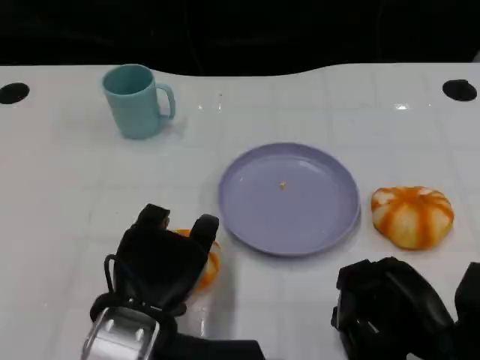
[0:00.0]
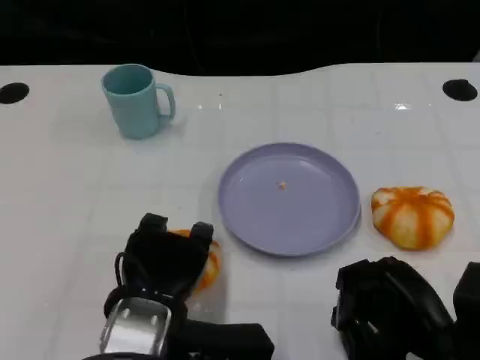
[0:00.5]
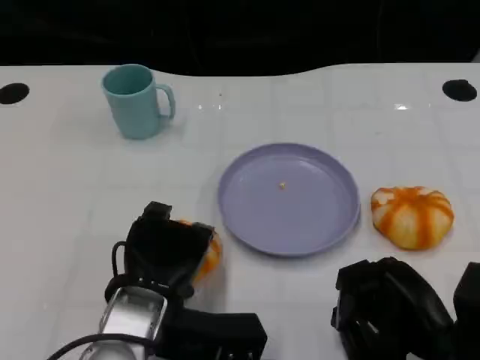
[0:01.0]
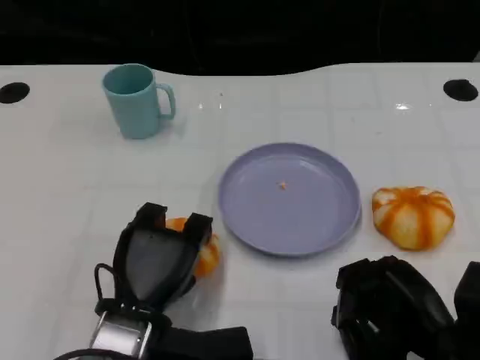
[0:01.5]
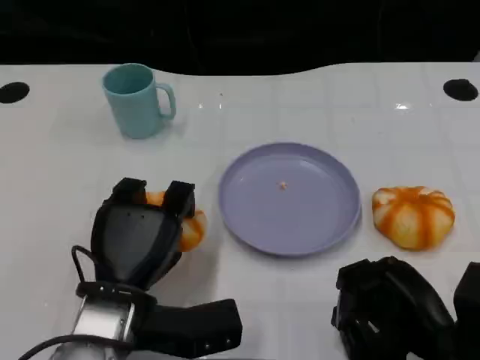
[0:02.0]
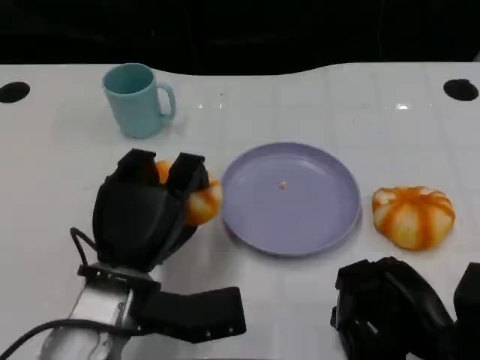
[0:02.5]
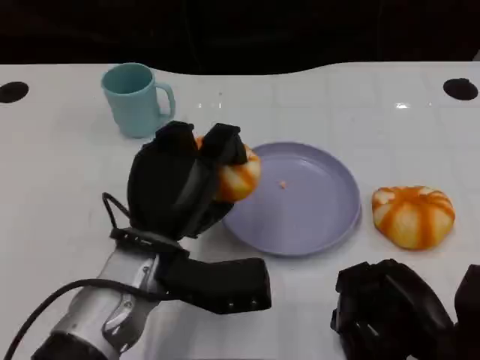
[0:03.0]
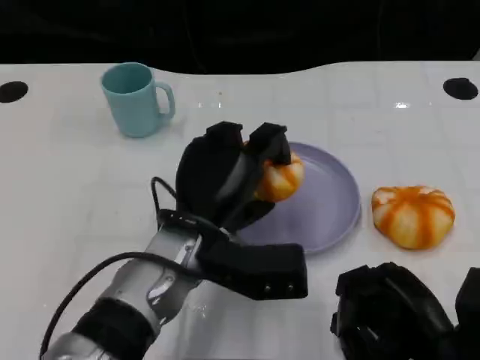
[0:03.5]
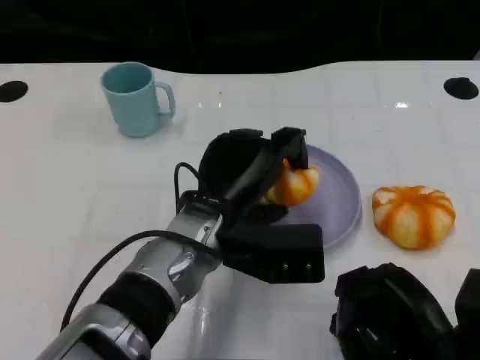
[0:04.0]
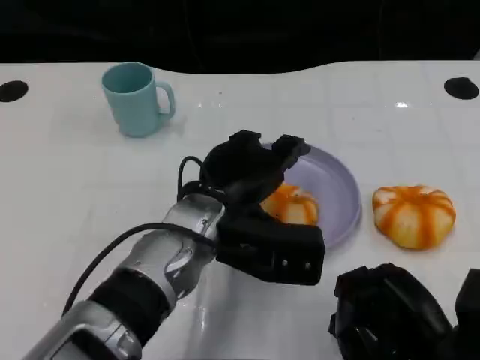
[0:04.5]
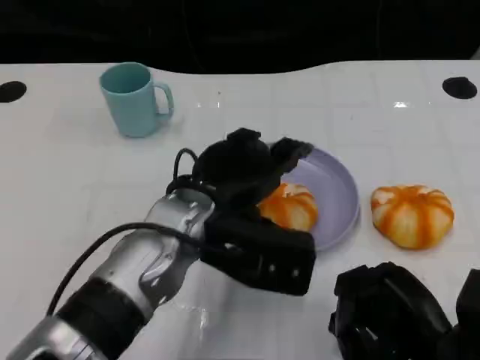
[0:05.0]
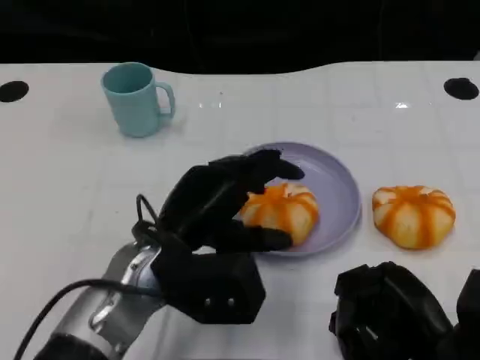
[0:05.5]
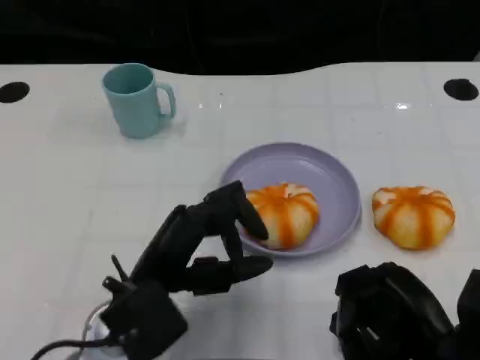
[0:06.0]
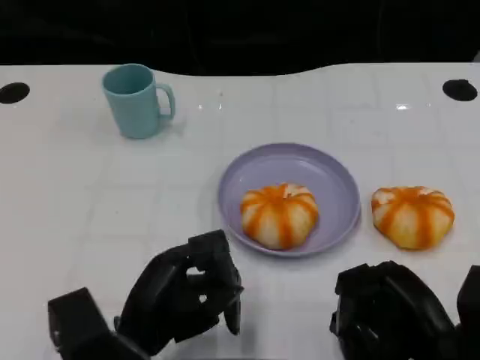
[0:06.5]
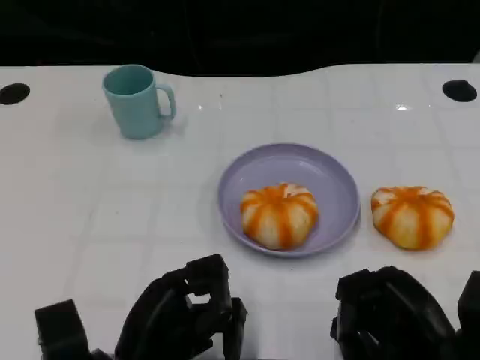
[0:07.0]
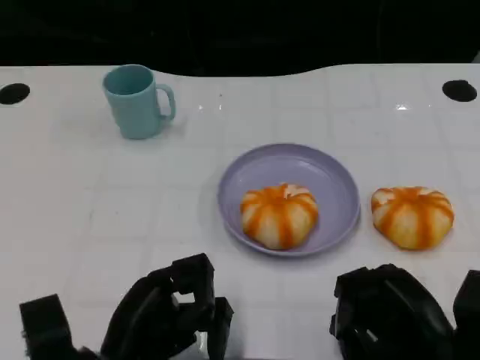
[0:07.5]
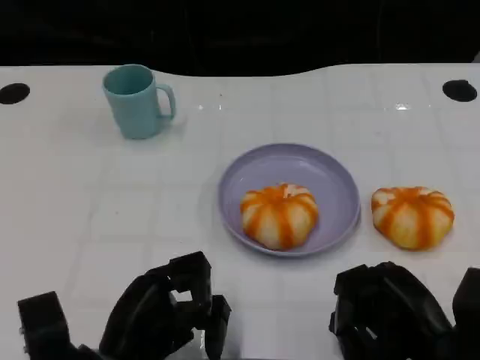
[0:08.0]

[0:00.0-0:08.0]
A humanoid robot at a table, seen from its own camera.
Task of the whole recording: Grasp the bread from the table and place it into the plate.
0:00.0 to 0:02.0: The left hand moves roughly 5 cm.
0:02.0 to 0:04.0: The left hand heads to the right and forward, covering approximately 10 cm.
0:04.0 to 0:06.0: The left hand travels to the left and backward by about 10 cm.
0:06.0 to 0:08.0: The left hand shifts by about 5 cm.

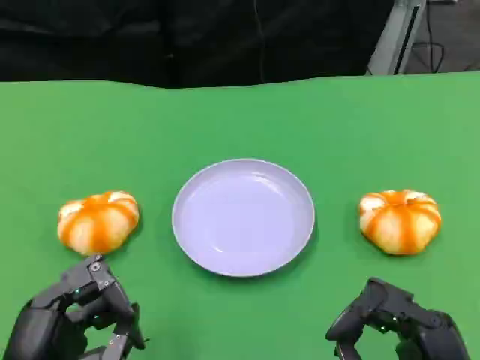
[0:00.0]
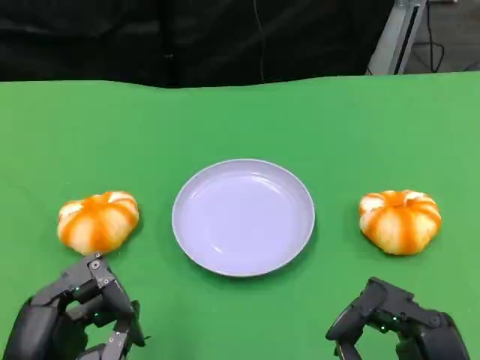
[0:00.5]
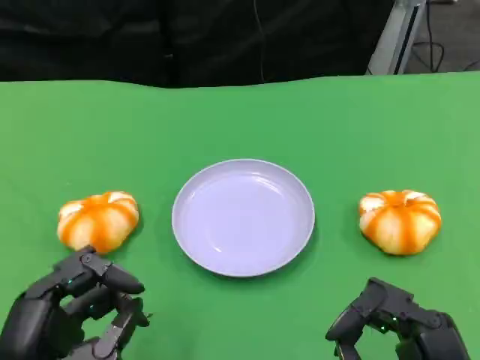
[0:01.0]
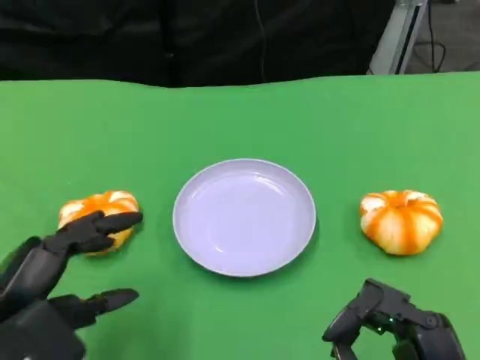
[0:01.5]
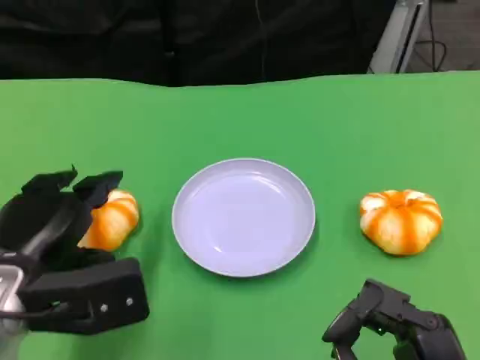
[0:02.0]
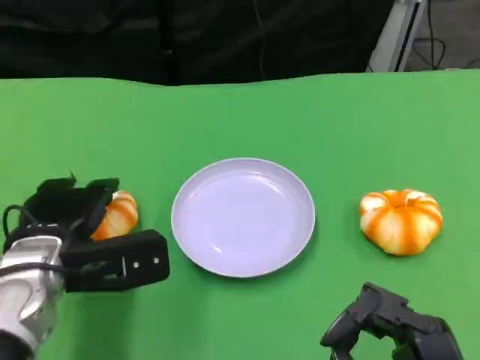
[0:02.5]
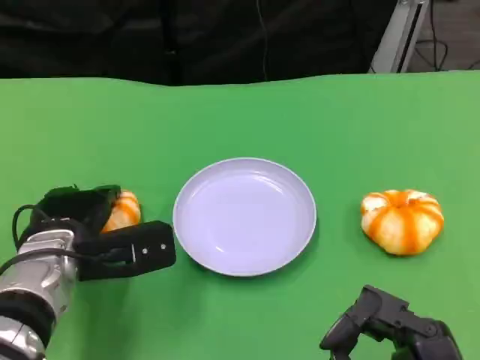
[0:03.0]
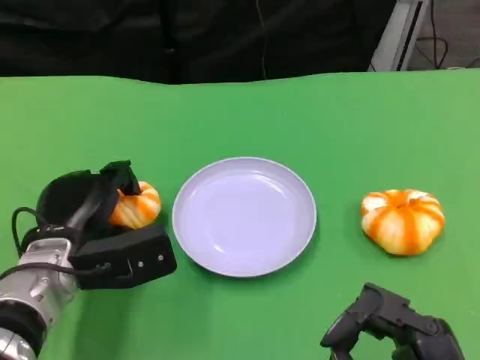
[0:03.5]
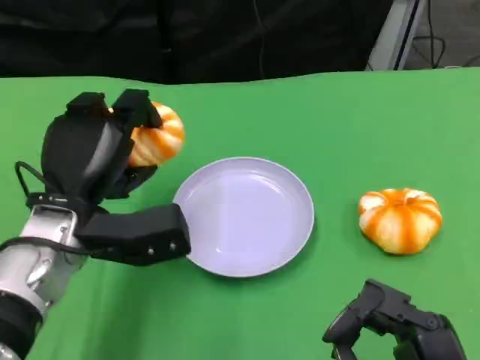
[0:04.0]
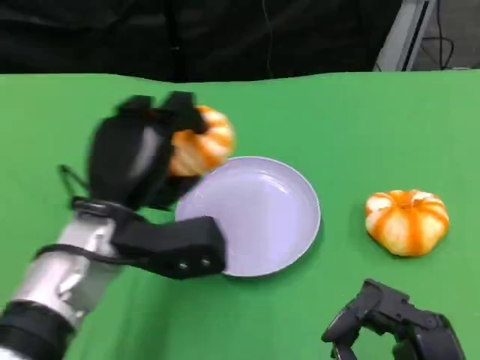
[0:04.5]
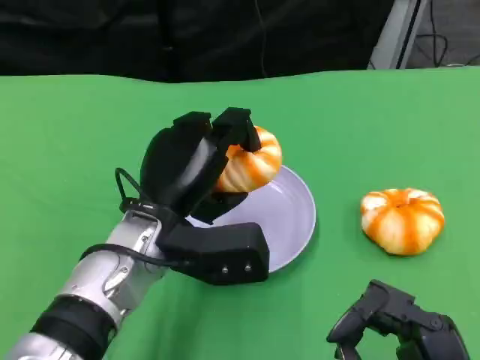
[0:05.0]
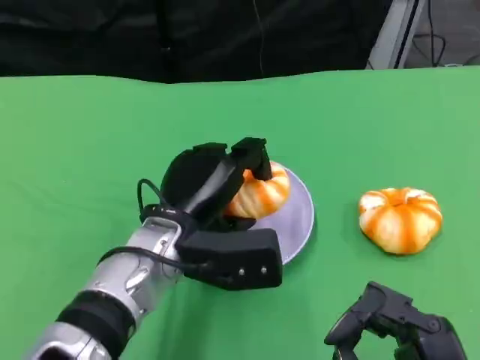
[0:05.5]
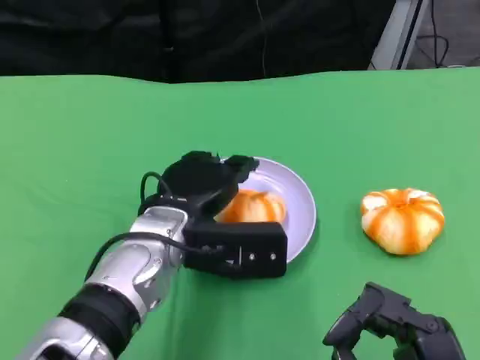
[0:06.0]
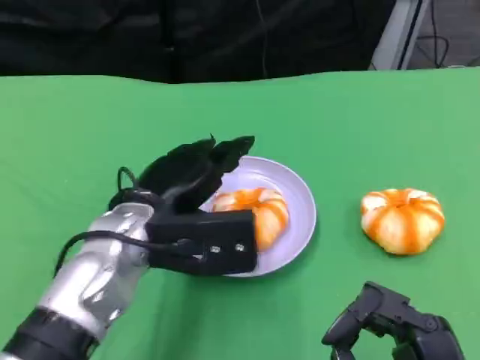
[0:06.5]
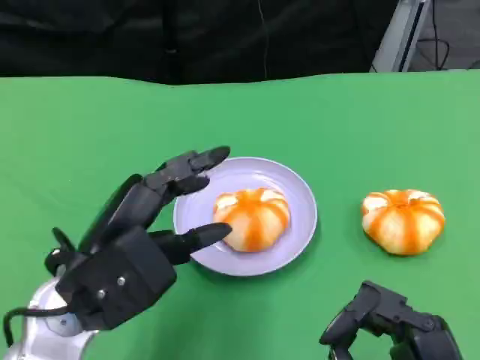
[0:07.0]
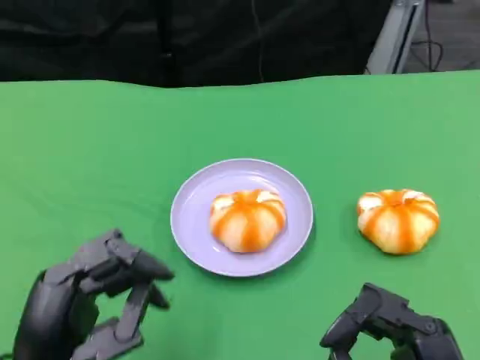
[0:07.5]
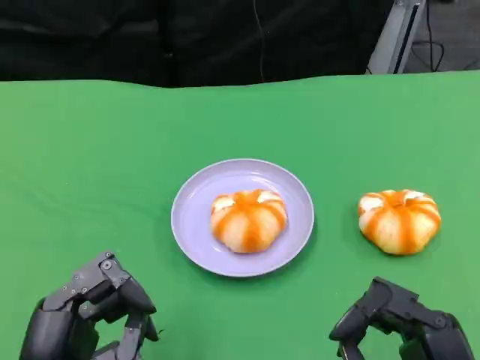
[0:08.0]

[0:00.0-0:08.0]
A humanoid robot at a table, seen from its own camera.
Task of the whole recording: Grasp the bread from the table and place it into the plate.
0:00.0 to 0:02.0: The left hand goes some 10 cm forward.
0:02.0 to 0:04.0: The left hand shifts about 5 cm forward.
0:04.0 to 0:06.0: The left hand heads to the right, covering roughly 10 cm.
0:06.0 to 0:08.0: The left hand heads backward and to the left, covering about 20 cm.

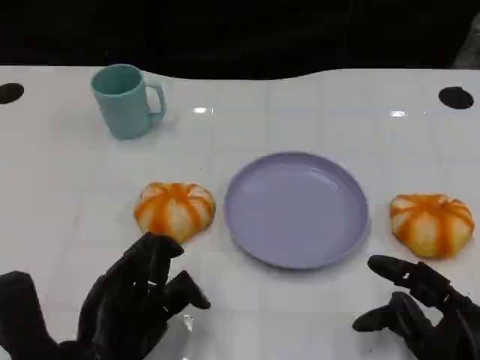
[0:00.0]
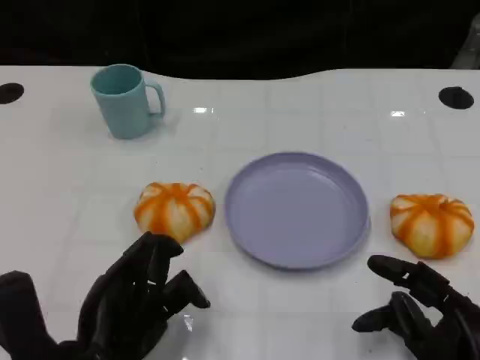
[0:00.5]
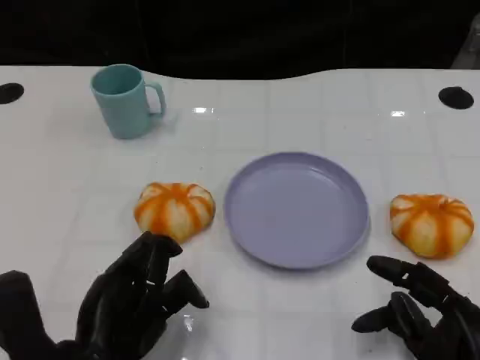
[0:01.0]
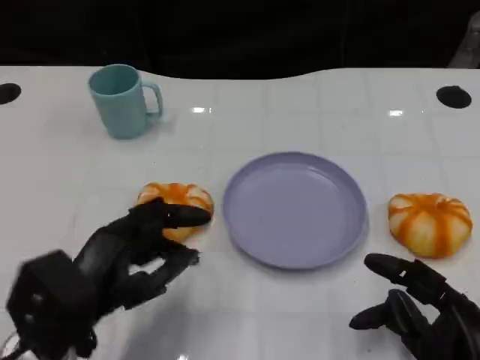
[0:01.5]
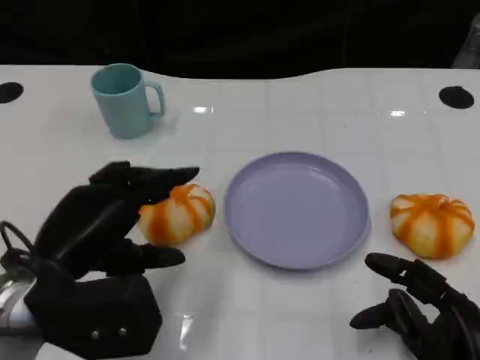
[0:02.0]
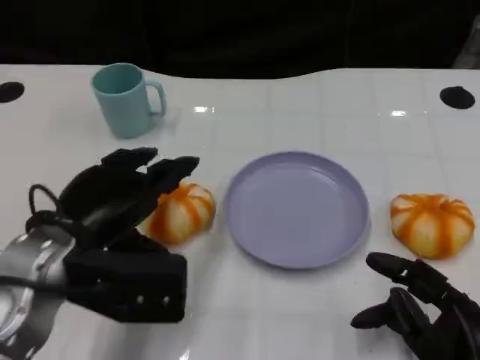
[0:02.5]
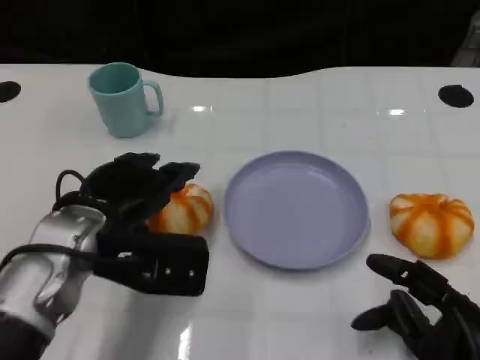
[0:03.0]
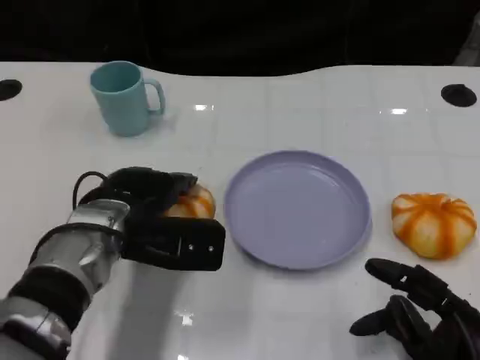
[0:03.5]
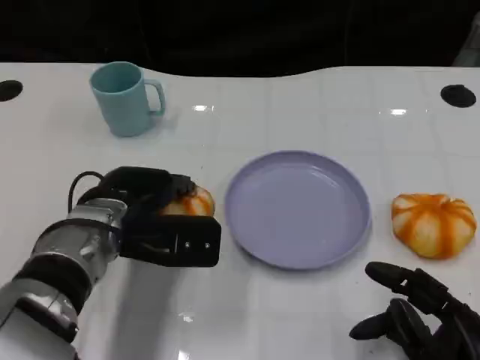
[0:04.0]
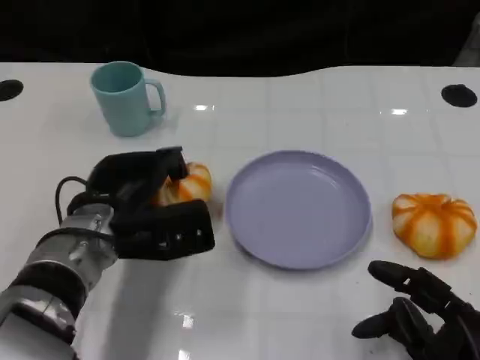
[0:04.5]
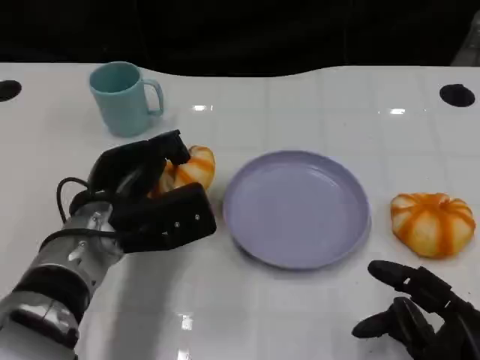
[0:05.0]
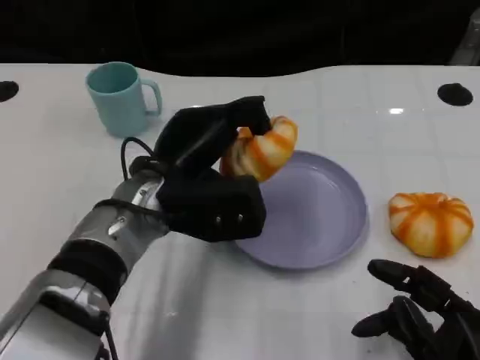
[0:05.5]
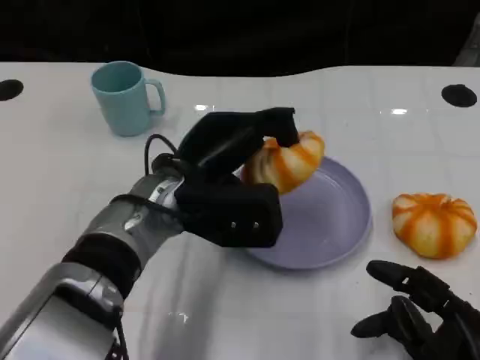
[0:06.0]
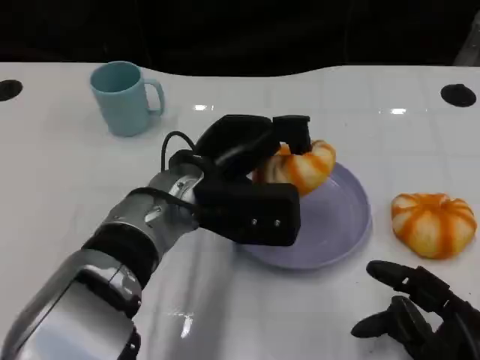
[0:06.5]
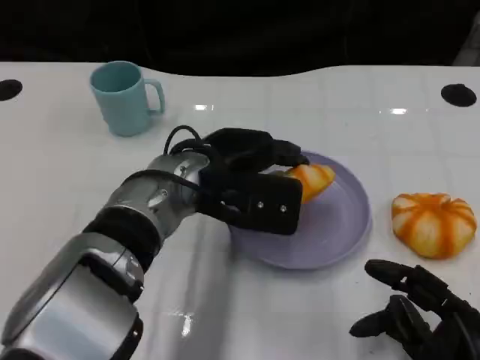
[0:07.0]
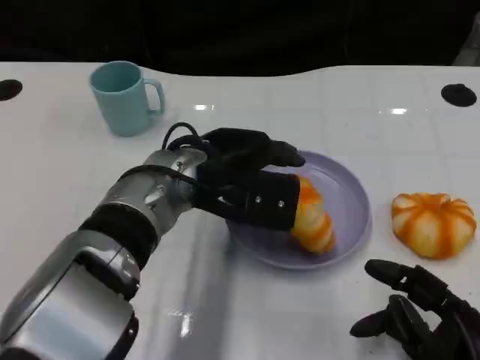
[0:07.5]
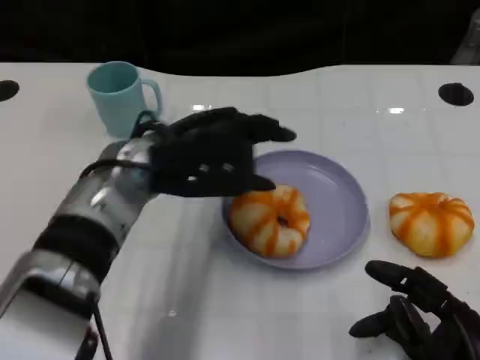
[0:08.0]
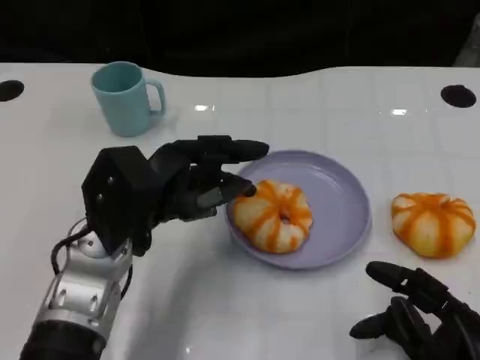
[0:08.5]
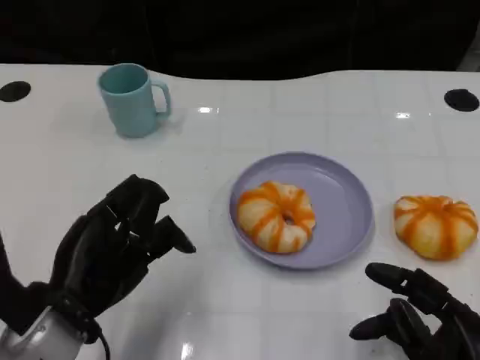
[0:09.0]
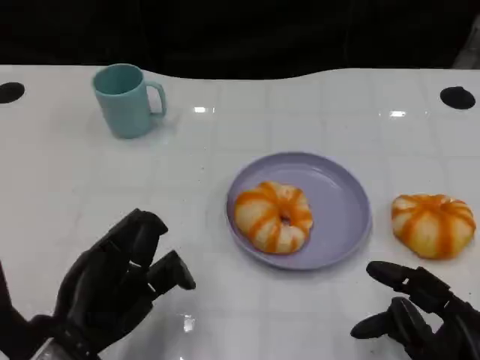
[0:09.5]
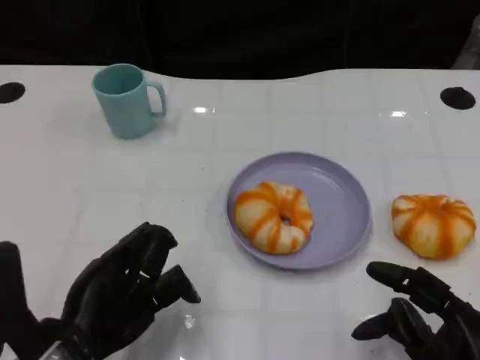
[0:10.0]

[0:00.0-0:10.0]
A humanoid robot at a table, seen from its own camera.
Task of the whole recording: Grasp the bread from the table and place it into the plate.
0:00.0 to 0:02.0: The left hand shifts approximately 5 cm upward.
0:02.0 to 0:04.0: The left hand moves forward and to the right, some 10 cm.
0:04.0 to 0:06.0: The left hand is displaced to the right by some 5 cm.
0:08.0 to 0:10.0: The left hand shifts about 20 cm backward, to the left and downward.
